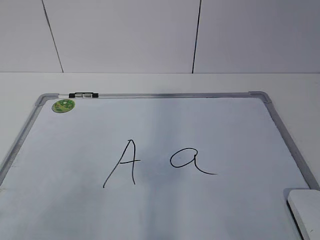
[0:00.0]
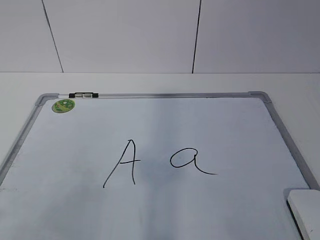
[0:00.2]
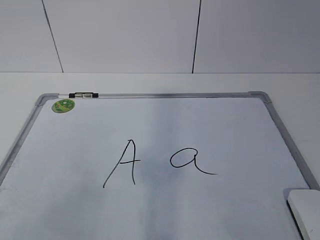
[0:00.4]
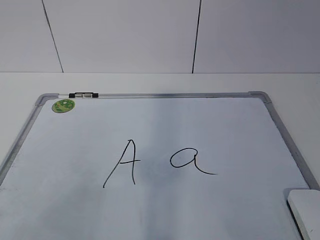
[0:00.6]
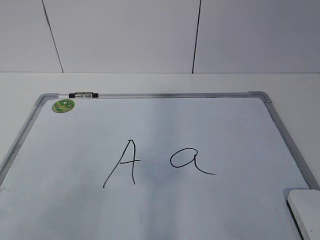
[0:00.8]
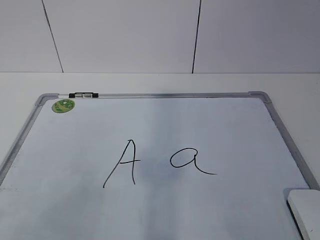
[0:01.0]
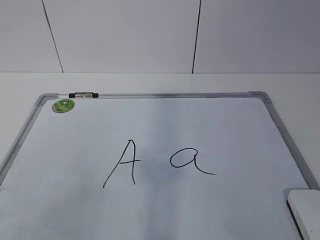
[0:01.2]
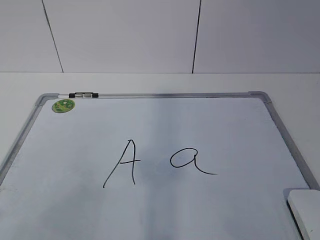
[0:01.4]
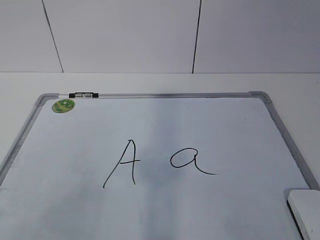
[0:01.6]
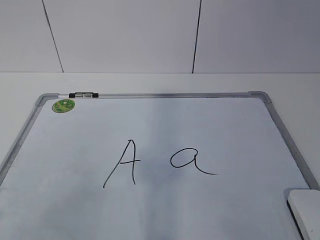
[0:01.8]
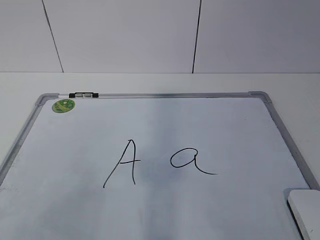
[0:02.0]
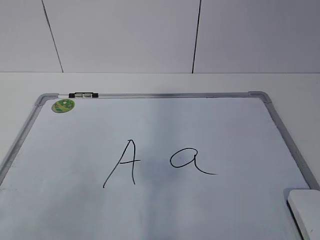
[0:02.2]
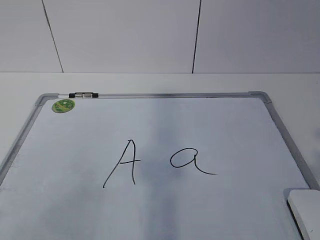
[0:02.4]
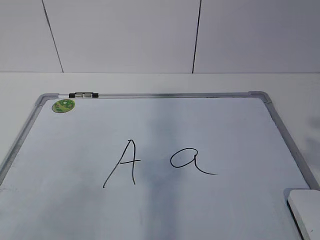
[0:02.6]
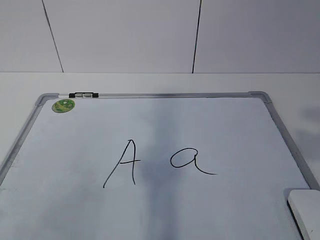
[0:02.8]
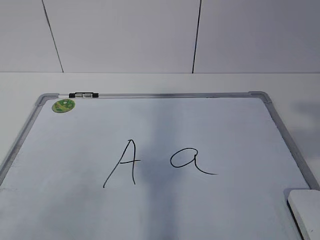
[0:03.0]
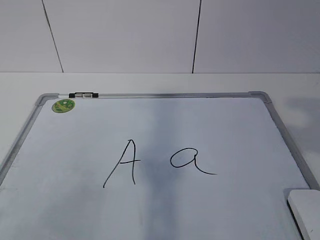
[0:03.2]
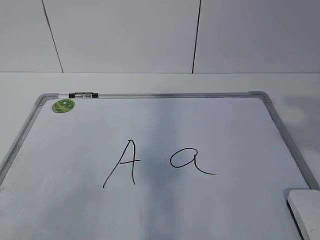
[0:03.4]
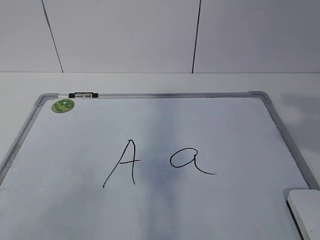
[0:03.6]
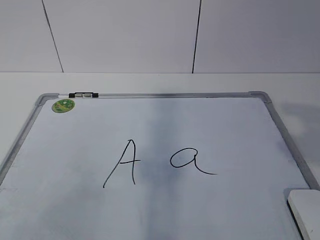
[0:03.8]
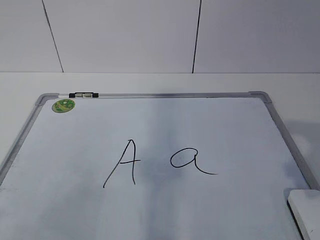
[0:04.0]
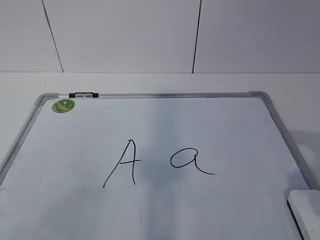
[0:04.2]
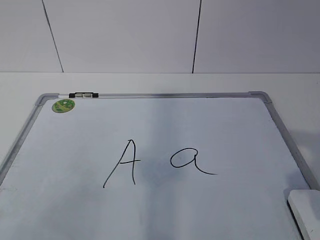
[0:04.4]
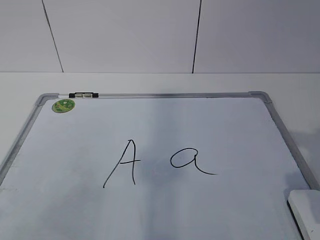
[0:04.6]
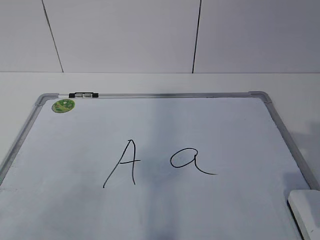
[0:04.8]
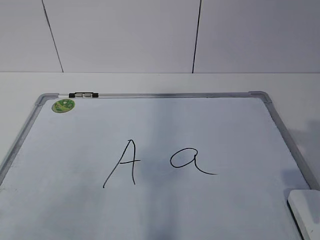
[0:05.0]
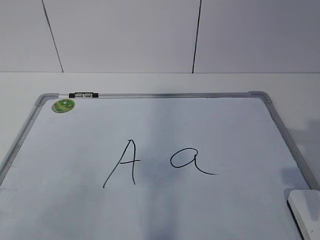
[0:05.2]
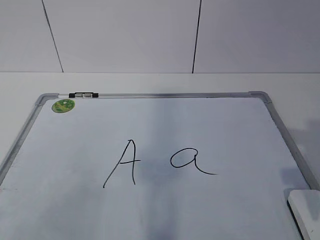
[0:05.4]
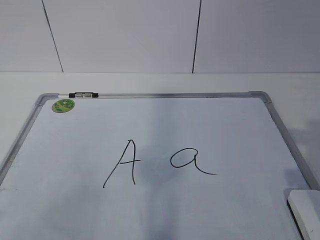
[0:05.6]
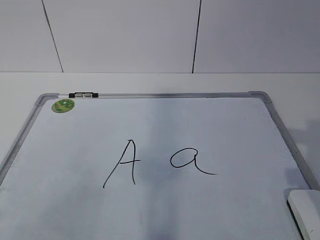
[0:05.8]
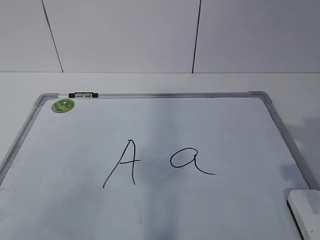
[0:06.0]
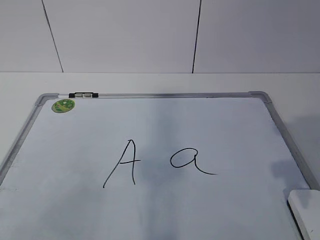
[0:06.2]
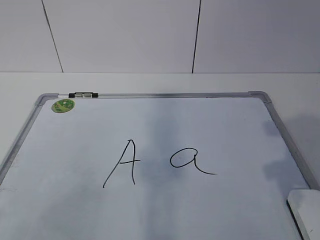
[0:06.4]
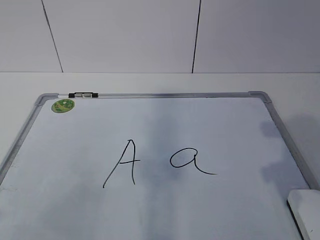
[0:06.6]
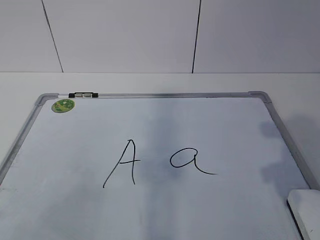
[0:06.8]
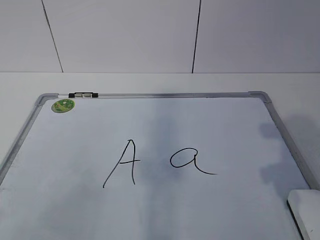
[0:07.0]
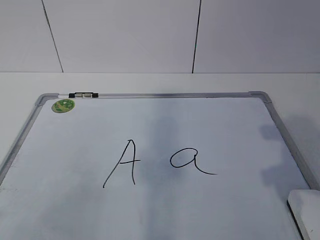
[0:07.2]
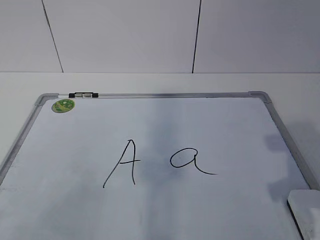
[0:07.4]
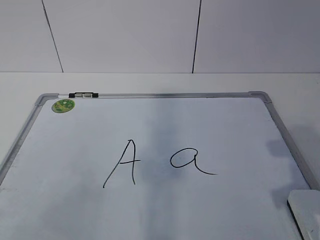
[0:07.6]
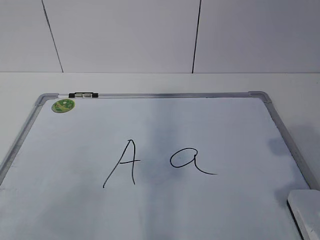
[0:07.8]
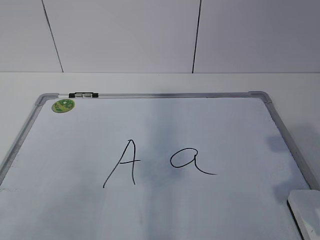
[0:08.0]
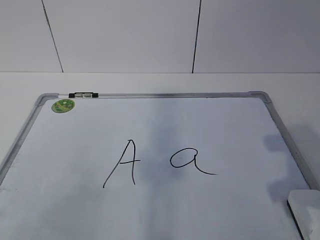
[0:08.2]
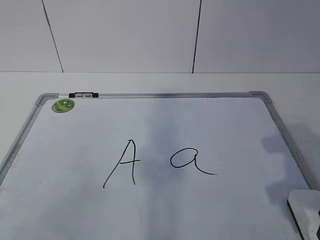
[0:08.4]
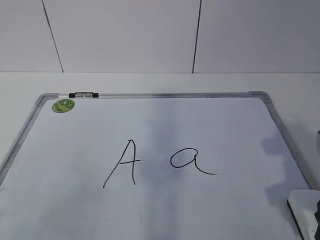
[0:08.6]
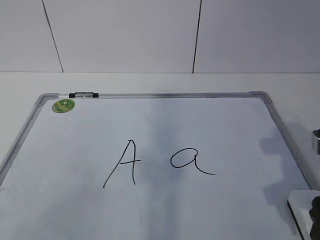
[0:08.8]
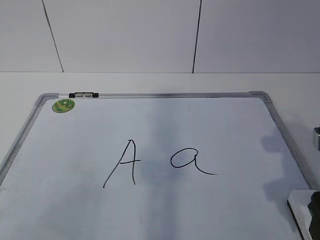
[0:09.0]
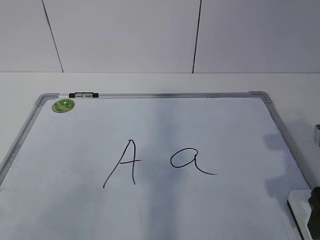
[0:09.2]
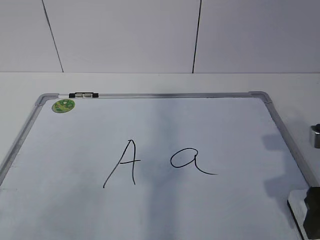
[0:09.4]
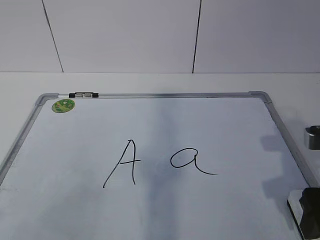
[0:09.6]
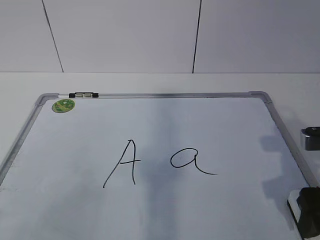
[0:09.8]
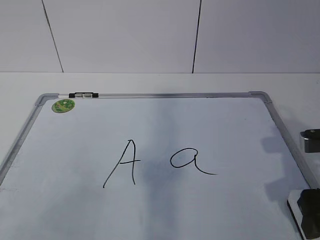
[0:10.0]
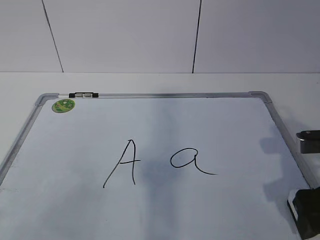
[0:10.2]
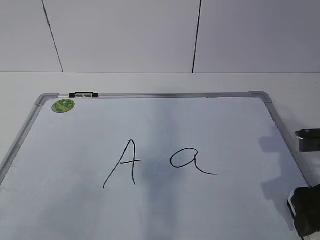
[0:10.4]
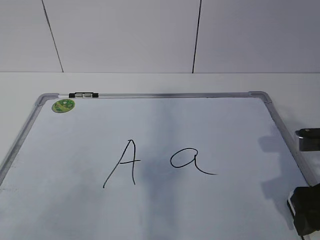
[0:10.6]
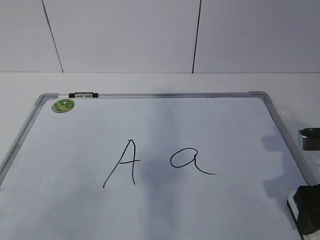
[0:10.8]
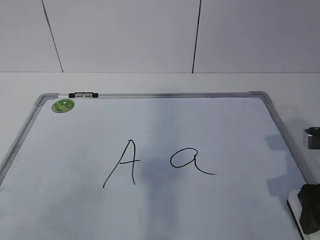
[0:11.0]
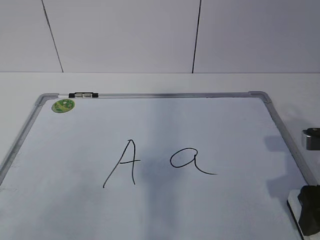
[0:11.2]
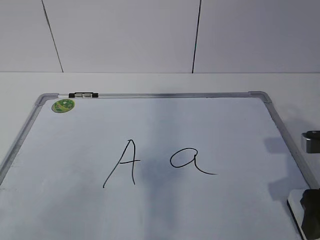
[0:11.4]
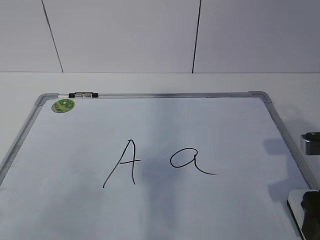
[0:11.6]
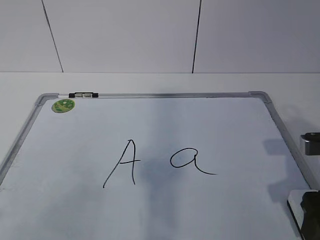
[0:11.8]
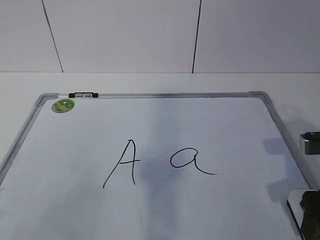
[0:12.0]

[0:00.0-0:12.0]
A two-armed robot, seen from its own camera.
Task of the whole recording: pick up the eraser on the blackboard and erase the letter "a".
0:07.6 to 0:09.0: The right gripper opens up.
0:09.0 to 0:12.0: There are only small adjustments of the grippers.

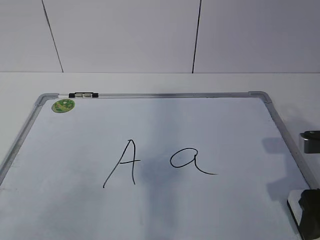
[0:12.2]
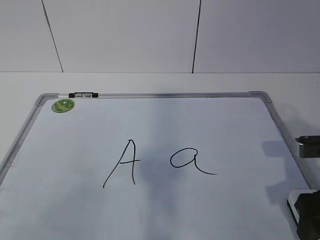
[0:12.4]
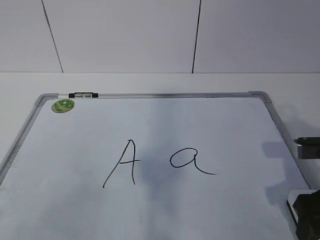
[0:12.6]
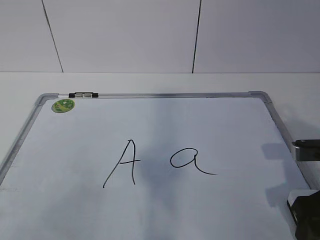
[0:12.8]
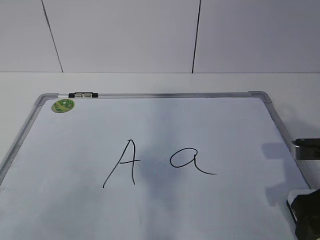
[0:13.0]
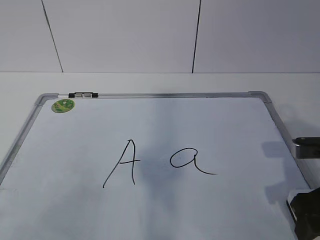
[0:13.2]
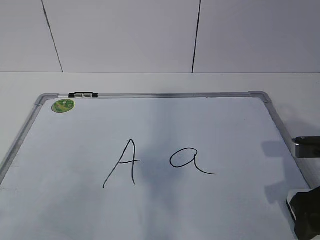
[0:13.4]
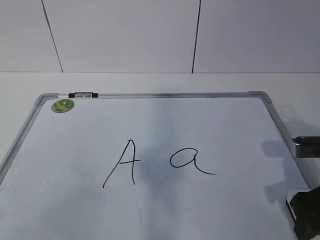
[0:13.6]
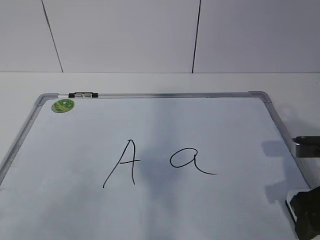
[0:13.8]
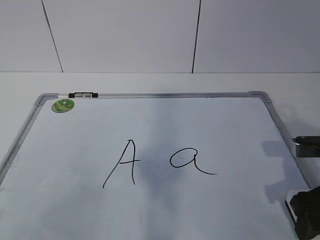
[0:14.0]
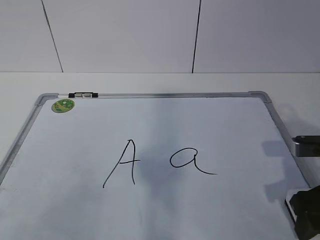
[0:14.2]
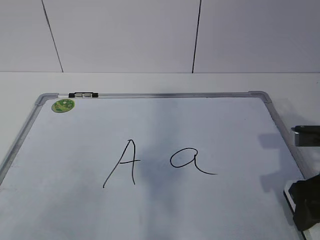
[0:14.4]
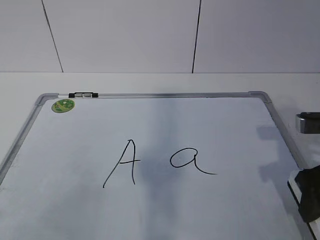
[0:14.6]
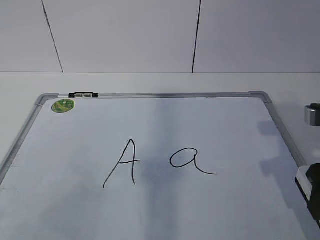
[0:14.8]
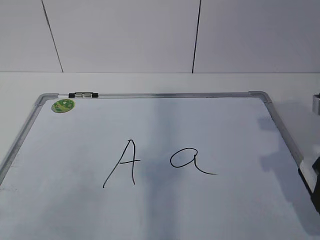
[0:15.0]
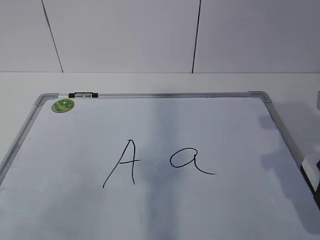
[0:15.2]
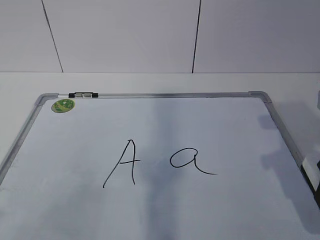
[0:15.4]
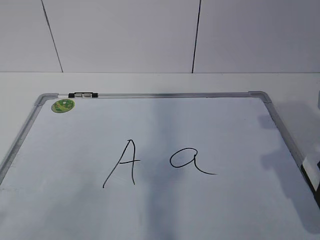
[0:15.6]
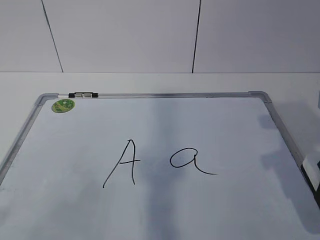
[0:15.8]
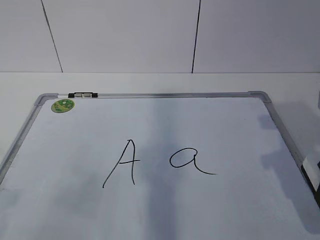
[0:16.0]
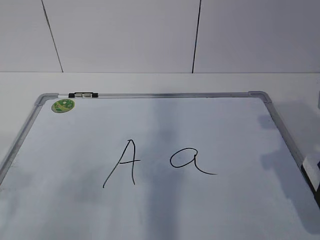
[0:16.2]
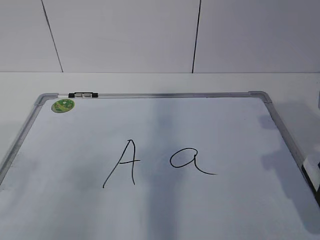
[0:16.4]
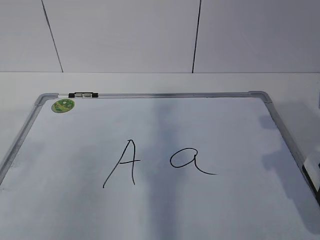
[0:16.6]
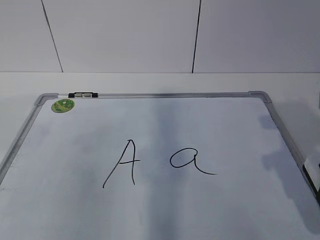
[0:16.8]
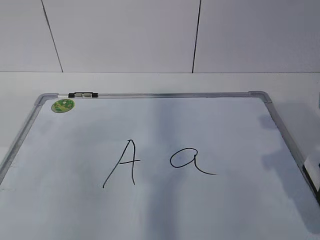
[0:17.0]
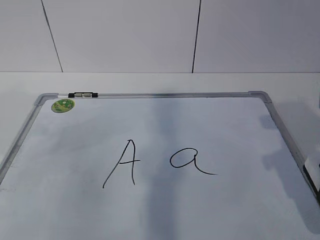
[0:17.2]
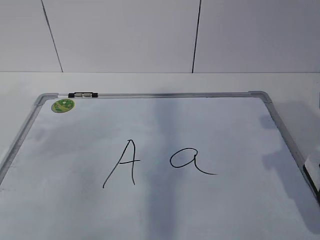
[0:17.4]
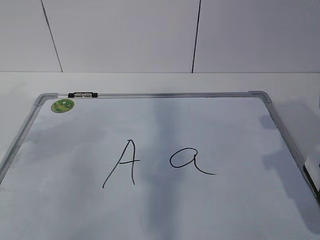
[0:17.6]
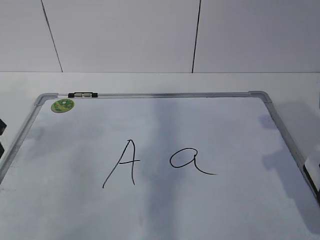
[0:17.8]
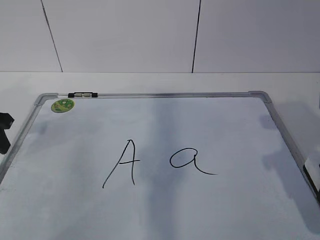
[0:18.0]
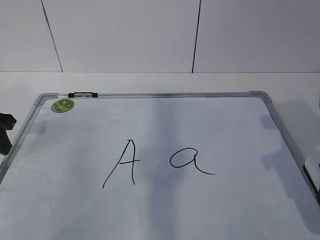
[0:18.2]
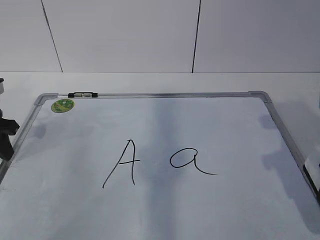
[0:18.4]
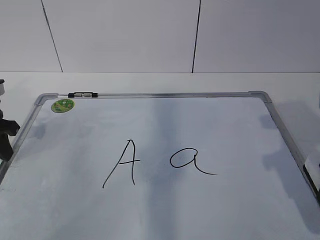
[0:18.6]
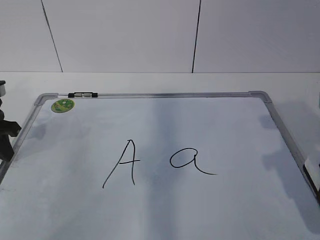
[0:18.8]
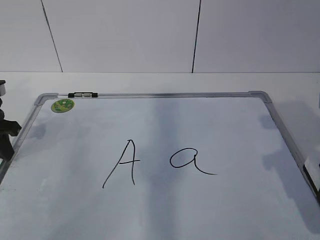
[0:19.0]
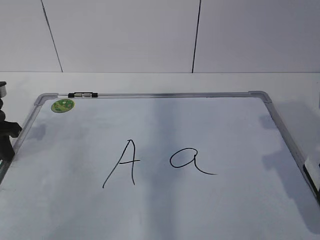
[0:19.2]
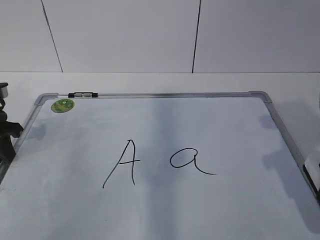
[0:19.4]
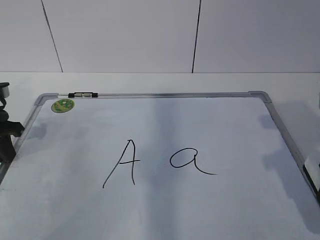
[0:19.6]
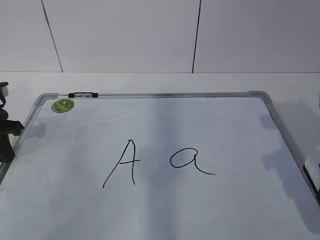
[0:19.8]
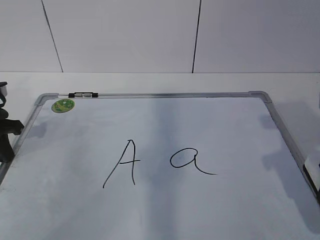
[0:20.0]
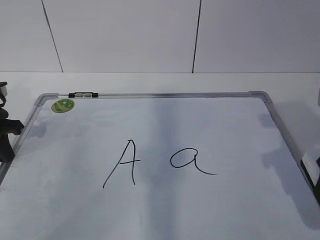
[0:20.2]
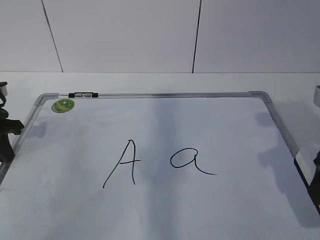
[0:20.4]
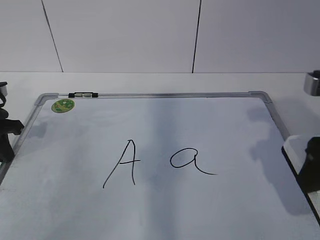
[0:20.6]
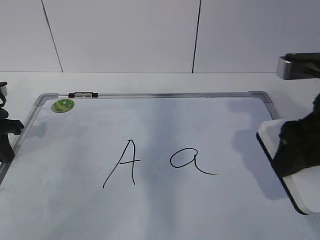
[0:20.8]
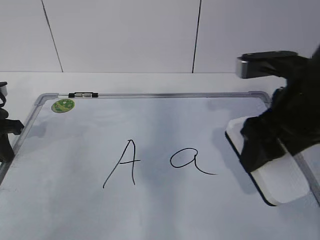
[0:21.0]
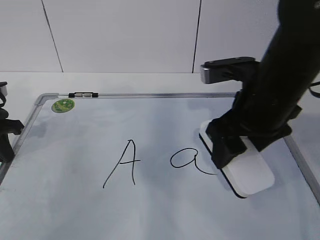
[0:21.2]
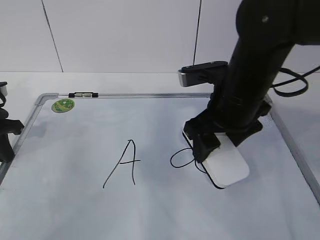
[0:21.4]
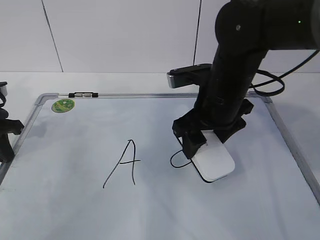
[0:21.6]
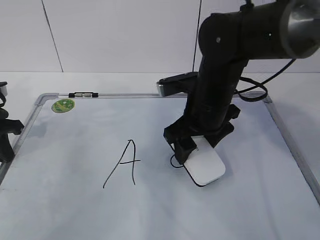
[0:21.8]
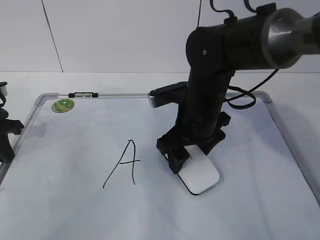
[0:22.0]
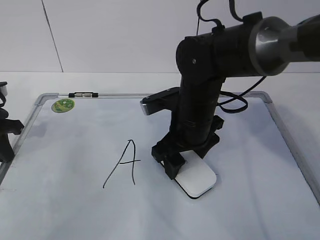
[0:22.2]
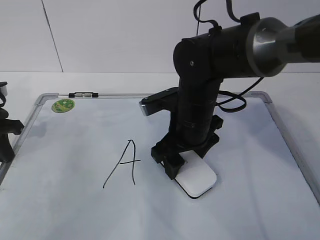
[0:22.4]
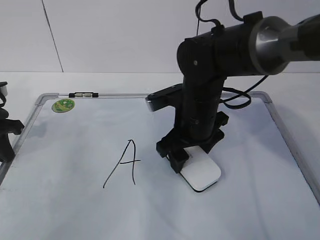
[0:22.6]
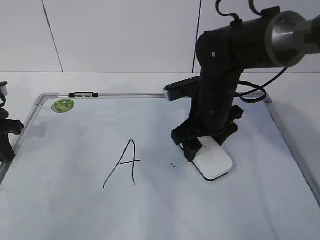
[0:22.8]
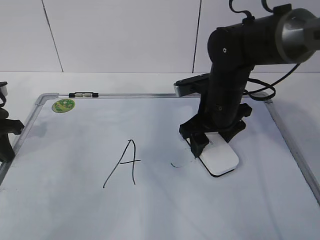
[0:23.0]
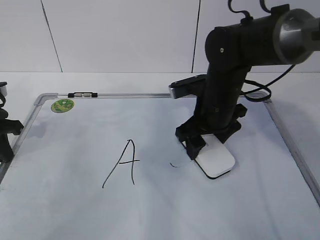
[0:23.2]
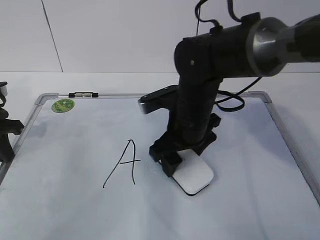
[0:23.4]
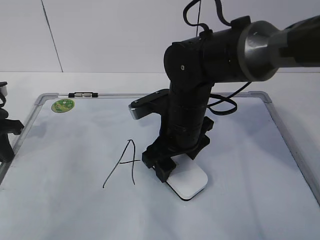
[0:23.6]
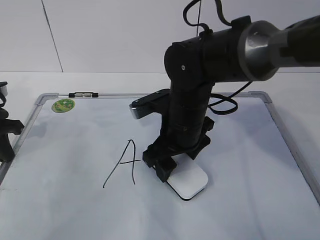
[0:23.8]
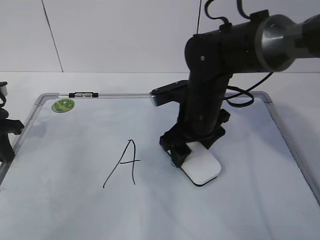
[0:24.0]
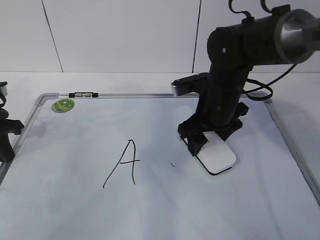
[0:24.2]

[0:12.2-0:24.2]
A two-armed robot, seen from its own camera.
Task of the whole recording: pick up the eraser on the blackboard and erase the letter "a".
Step, 0:12.2 to 0:16.0: Hold the drawing board steady with your left hand.
Step, 0:16.4 to 0:21.2: Erase the letter a with your right hand.
Step, 0:21.4 to 0:23.8: Put down the eraser with your right hand.
0:12.2 to 0:13.8: The right gripper closes.
0:13.8 to 0:15.2: The right gripper travels upward by some 10 cm.
0:16.6 to 0:18.2: The left gripper moves forward and downward, some 20 cm.
0:18.2 to 0:19.8: The left gripper closes its fingers.
0:19.8 to 0:21.2: The right gripper goes roughly 15 cm to the left and forward.
0:21.2 to 0:22.6: The right gripper moves downward, to the left and forward, about 15 cm.
0:22.6 to 0:24.2: The right gripper swings left and right, about 5 cm each way, with 2 reversals.
